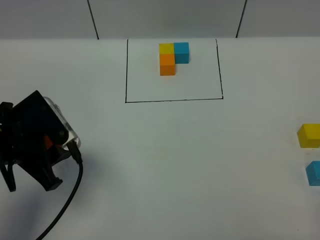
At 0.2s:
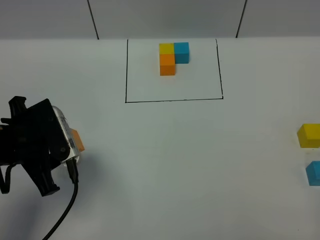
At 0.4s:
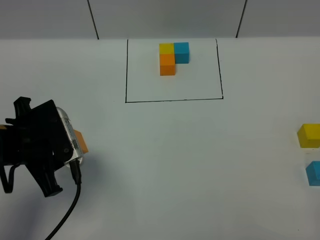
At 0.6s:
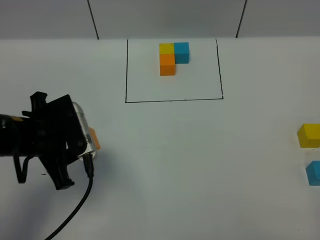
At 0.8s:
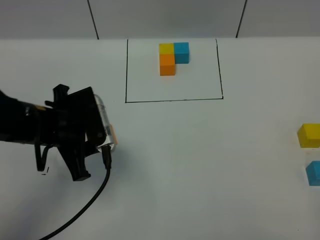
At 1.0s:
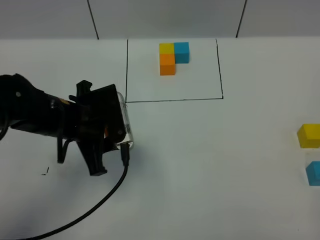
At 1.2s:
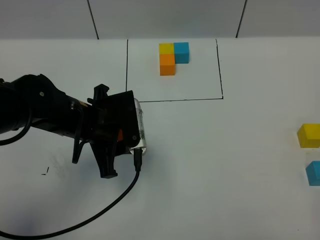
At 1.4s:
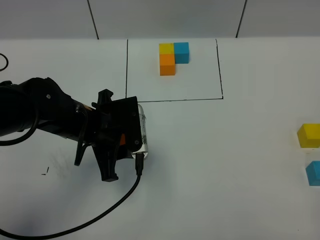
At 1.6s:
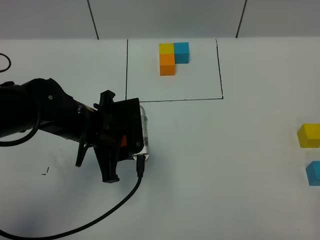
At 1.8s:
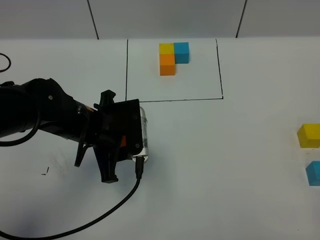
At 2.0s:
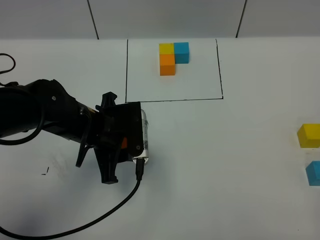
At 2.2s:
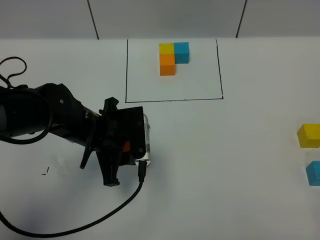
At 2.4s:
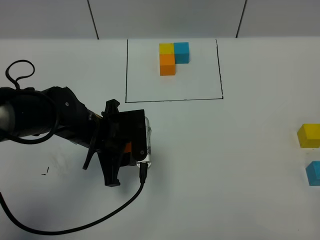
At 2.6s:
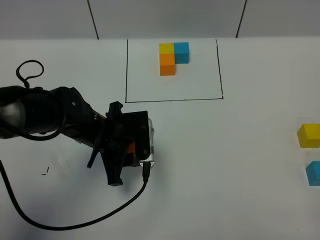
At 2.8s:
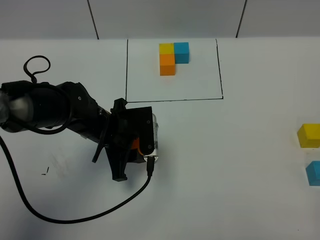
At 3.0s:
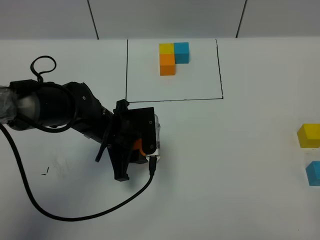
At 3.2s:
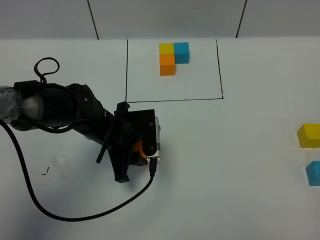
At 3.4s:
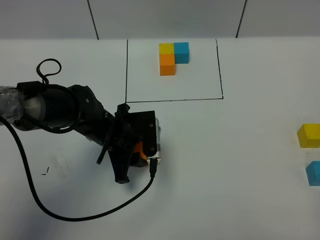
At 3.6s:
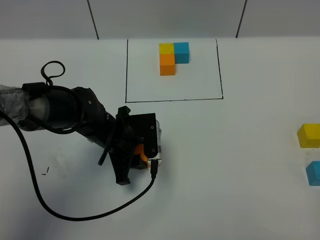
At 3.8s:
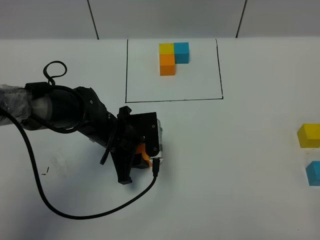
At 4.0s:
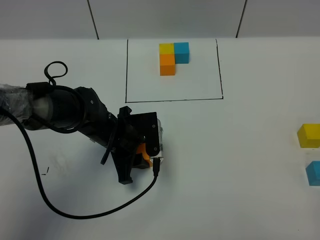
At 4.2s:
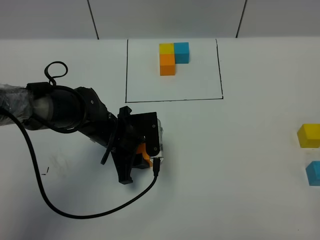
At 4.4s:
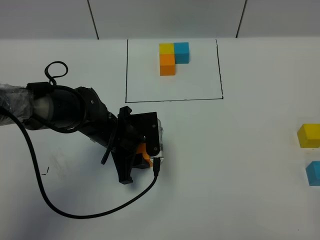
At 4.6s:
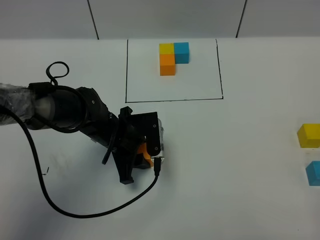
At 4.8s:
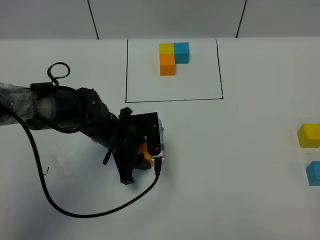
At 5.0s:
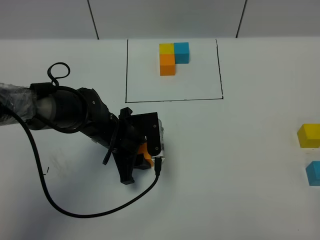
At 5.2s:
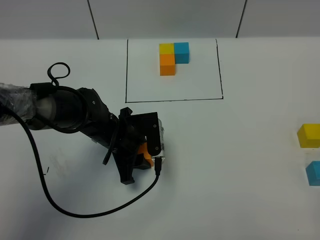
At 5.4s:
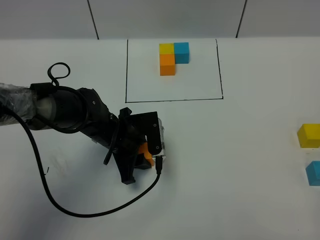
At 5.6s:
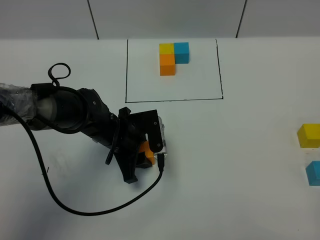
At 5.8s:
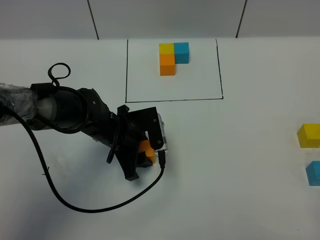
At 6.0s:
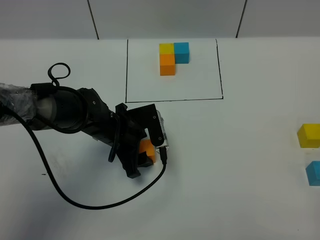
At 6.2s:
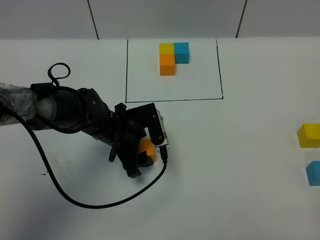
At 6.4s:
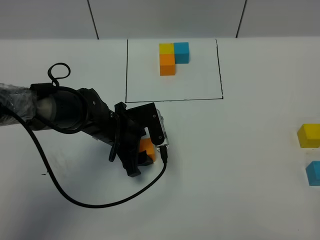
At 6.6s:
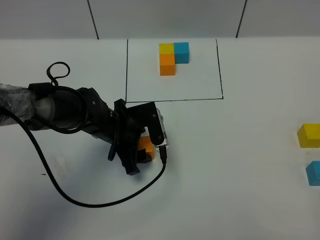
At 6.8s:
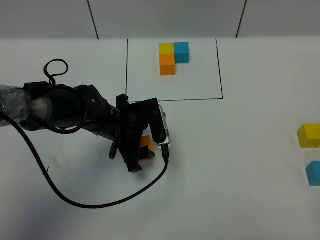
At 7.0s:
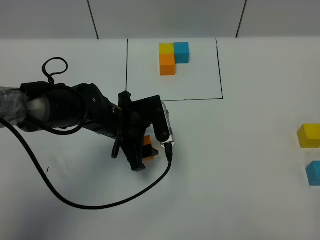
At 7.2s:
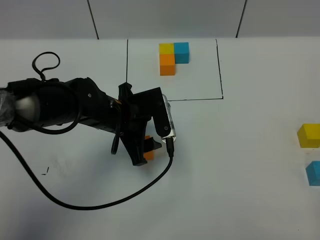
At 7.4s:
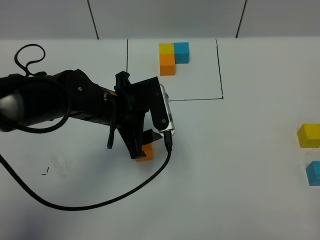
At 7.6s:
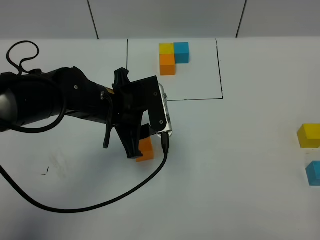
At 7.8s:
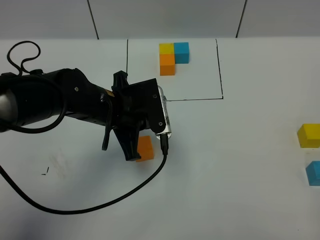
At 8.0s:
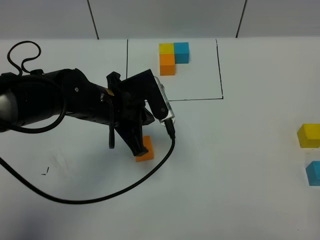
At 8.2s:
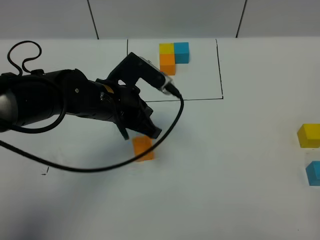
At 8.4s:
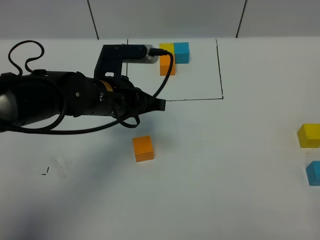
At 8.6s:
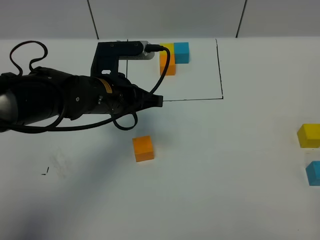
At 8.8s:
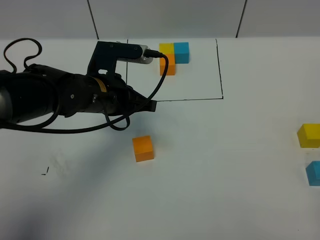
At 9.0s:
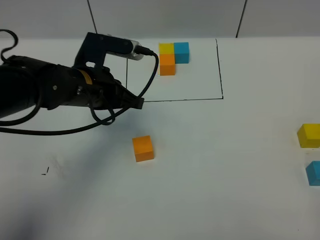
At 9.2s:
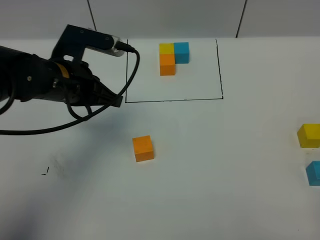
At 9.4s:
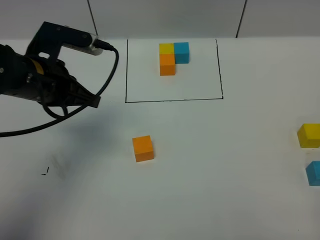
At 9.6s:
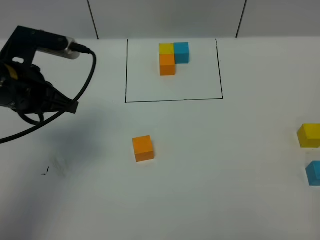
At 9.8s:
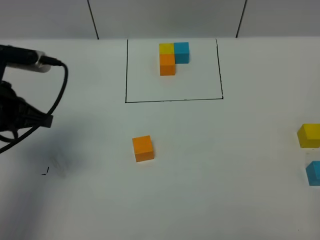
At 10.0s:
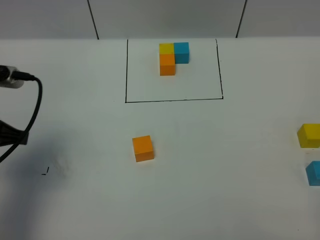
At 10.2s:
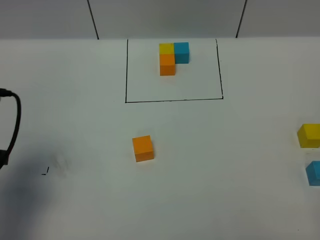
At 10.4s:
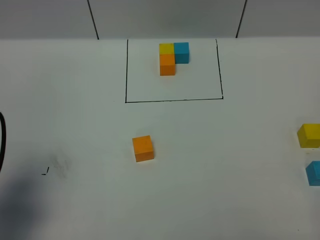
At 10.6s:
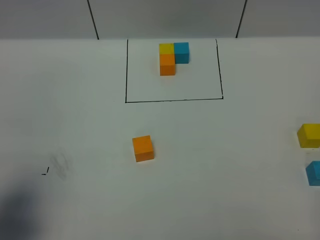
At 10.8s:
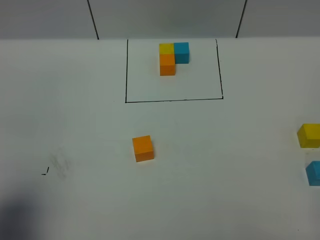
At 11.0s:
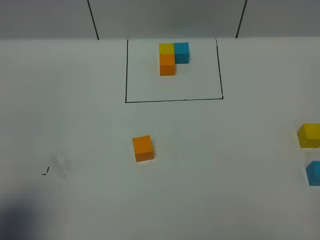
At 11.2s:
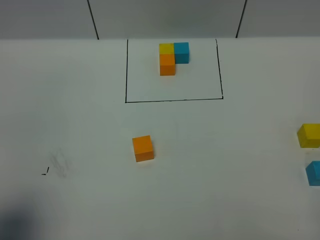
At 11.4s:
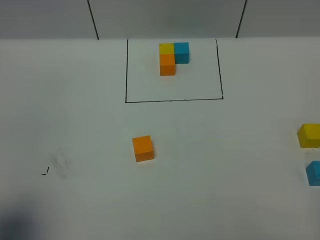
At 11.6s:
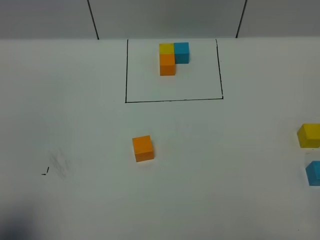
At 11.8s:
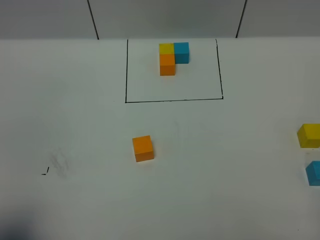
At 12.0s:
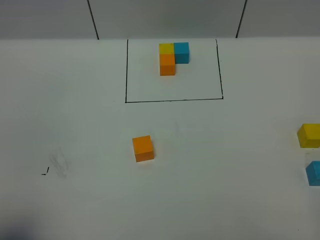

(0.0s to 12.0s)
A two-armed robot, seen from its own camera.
Task of the whole recording: According to the building block template in front, assemble the scattered blocks together.
Step, 0.0s - 8.4s: Put the orange cube in the center of the table.
0.0s - 1.6s: The left gripper travels to the right and forward by roughly 10 cm.
1.6s - 3.0s: The left gripper shifts some 5 cm downward.
3.0s - 6.0s: The grippers stay close to where they were, moving slightly.
6.0s - 7.6s: The left gripper heads upward, covering roughly 10 cm.
7.6s - 9.0s: The left gripper ends up approximately 5 cm from where it was, and closes.
9.0s - 10.4s: The left gripper goes about 25 cm backward and to the left.
10.4s - 12.0s: The left gripper moves backward, some 10 cm.

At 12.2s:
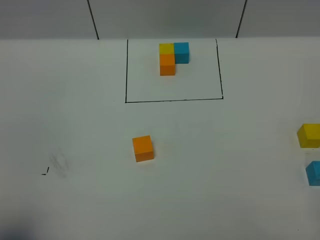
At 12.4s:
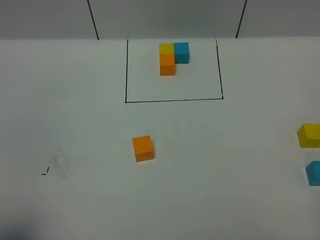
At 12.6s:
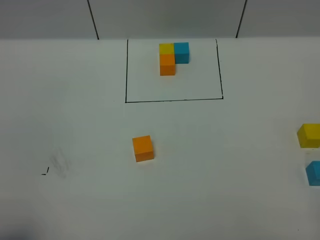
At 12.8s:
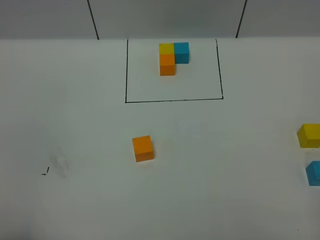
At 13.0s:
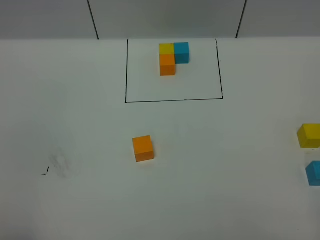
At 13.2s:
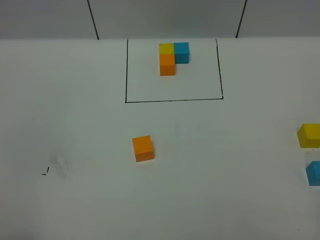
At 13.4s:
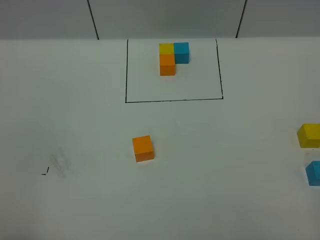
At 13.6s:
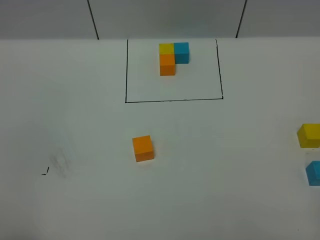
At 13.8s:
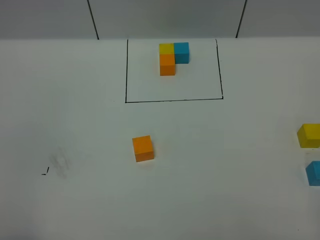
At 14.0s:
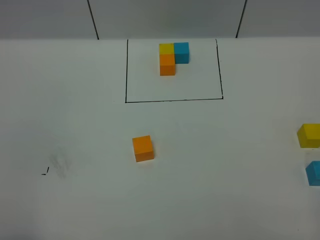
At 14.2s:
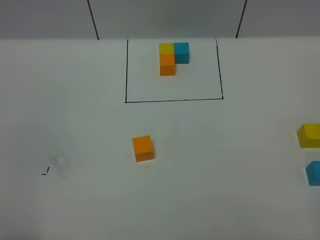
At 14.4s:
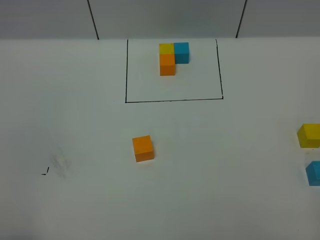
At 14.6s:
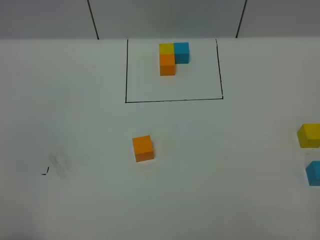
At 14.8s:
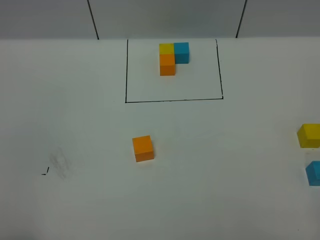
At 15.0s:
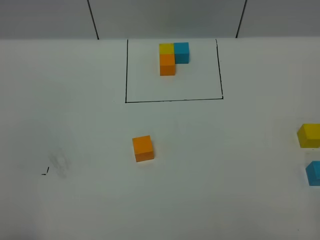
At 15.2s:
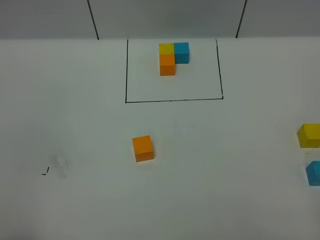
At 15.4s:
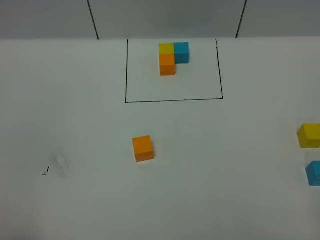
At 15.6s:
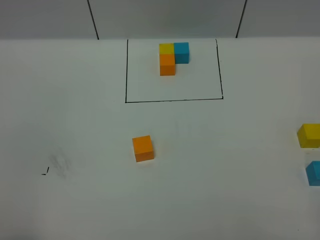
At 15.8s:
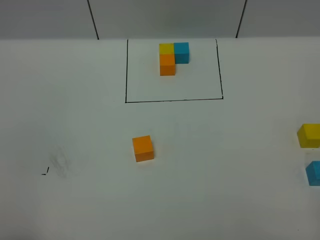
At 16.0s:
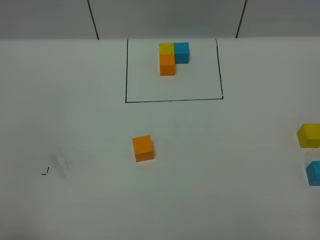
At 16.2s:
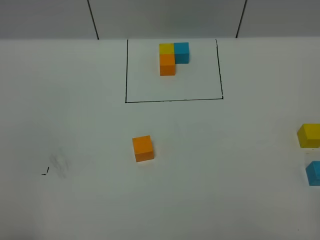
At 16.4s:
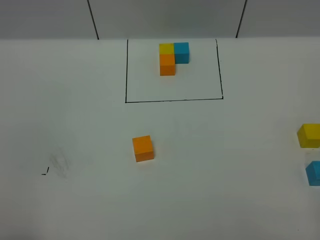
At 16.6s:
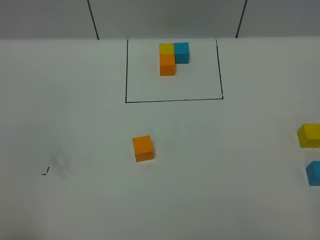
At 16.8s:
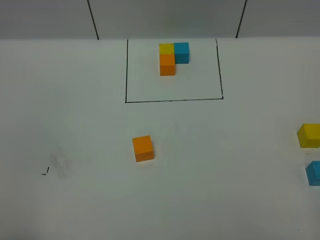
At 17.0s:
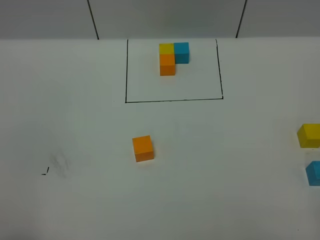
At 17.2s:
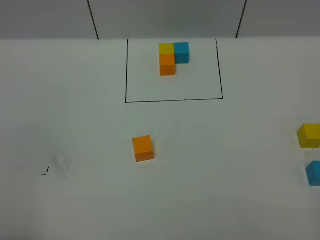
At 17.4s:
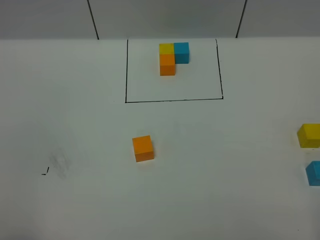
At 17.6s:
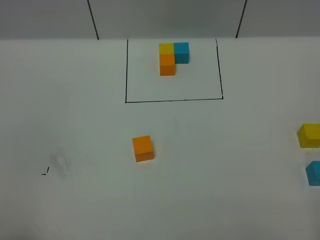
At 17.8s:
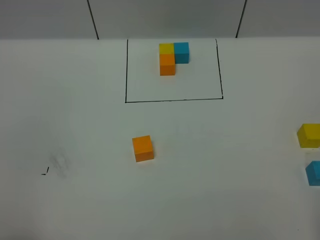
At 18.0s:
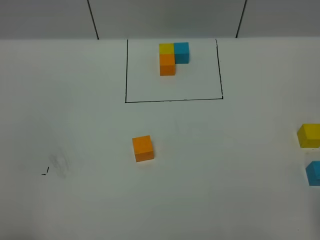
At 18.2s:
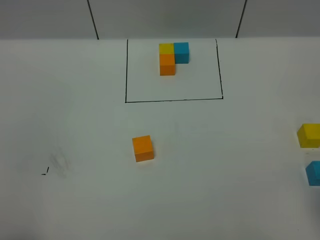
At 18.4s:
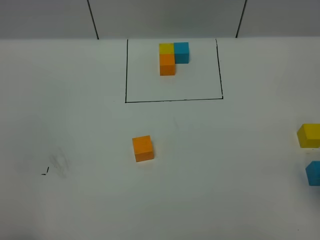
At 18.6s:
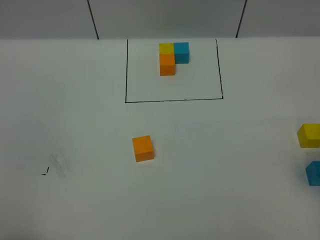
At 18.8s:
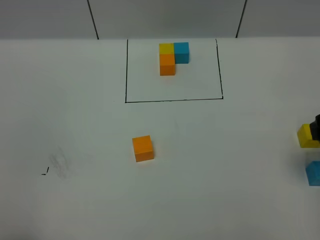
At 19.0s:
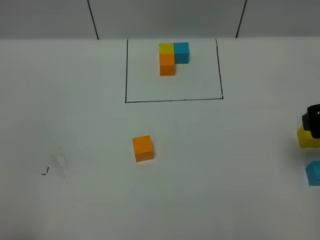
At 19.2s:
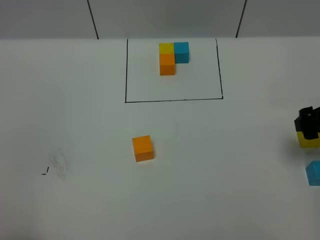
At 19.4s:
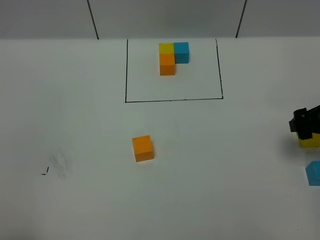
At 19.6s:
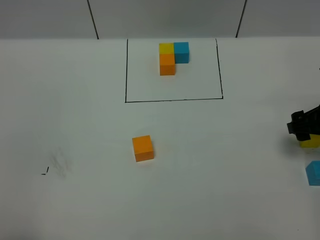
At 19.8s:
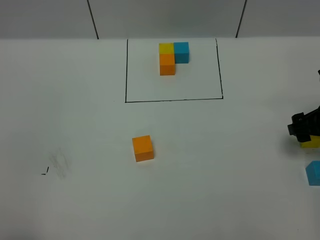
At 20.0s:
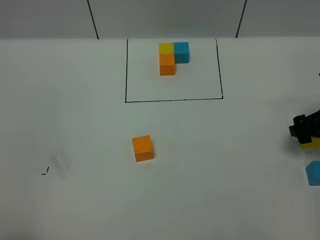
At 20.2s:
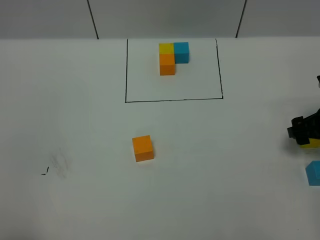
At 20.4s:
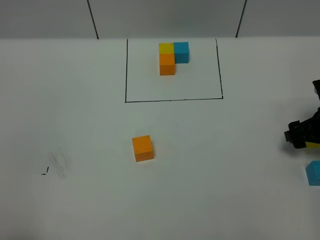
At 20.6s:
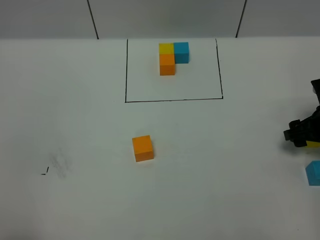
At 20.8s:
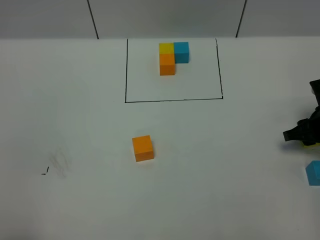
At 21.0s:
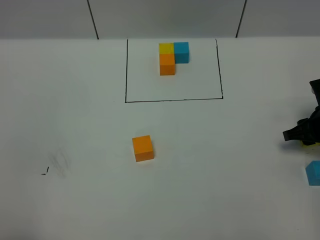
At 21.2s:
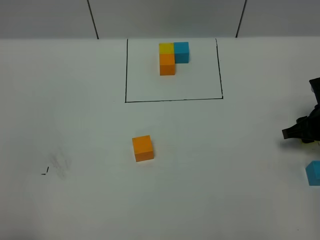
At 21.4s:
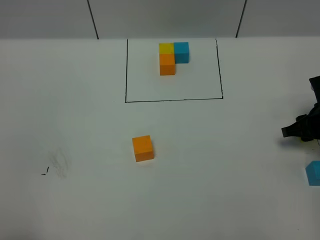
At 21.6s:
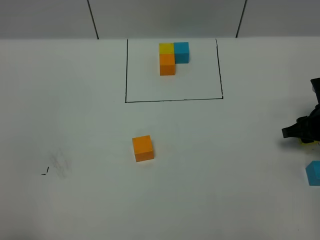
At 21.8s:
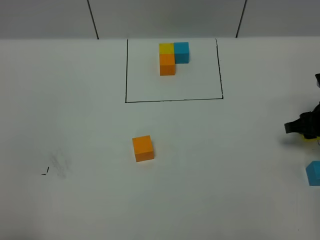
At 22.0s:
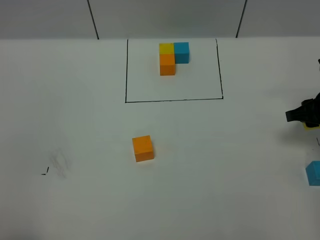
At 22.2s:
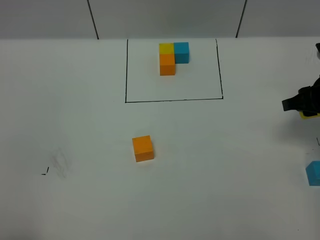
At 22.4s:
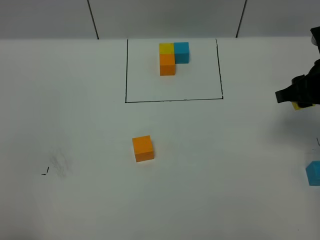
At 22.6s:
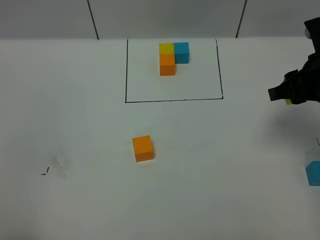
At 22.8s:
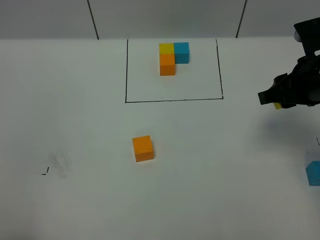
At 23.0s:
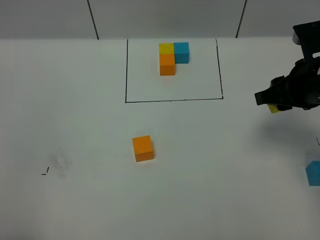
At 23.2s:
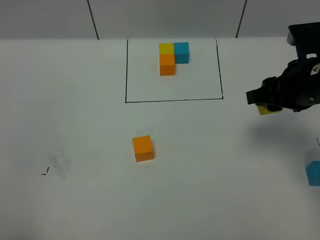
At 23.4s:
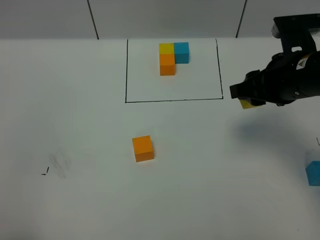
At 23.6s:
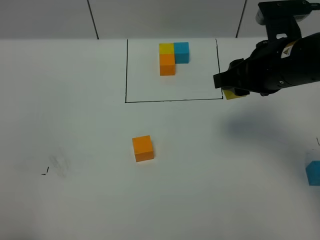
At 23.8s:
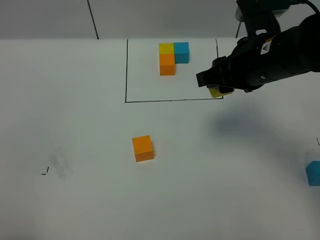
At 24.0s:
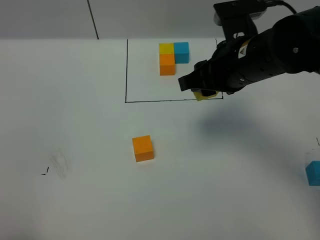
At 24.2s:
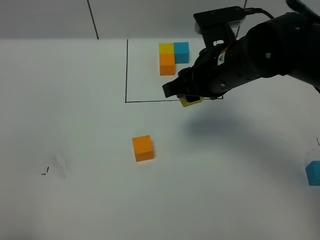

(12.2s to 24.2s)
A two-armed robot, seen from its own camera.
Task of the whole recording: According to the building block template in front, assemble the scattered blocks together.
13.8s - 16.6s: Both grippers stay about where they are.
18.2s - 19.8s: The right gripper heads forward and downward, covering approximately 25 cm.
19.8s - 21.2s: The right gripper ends up roughly 5 cm from where it was, and closes.
21.2s - 22.6s: The right gripper is displaced upward and to the left by some 15 cm.
22.6s - 24.2s: The right gripper is displaced to the left by about 15 cm.
